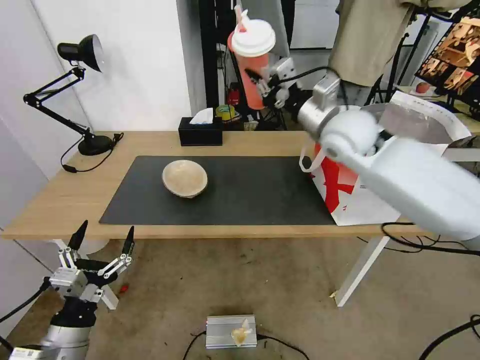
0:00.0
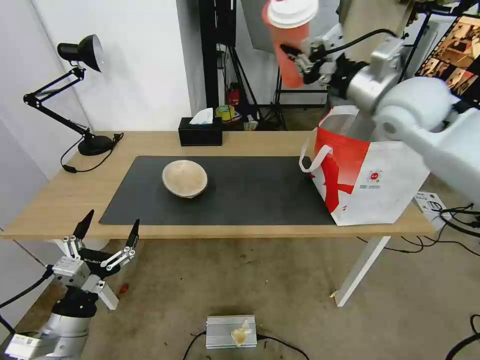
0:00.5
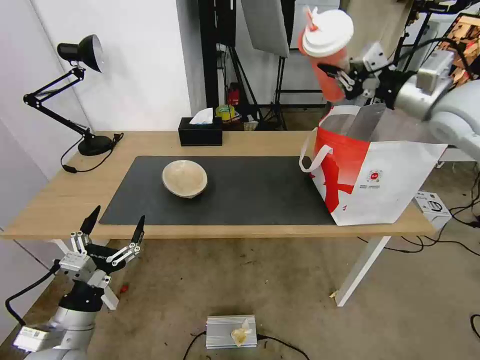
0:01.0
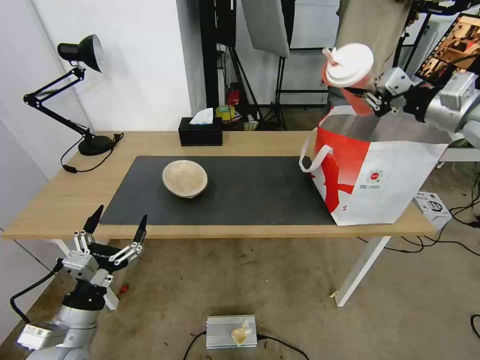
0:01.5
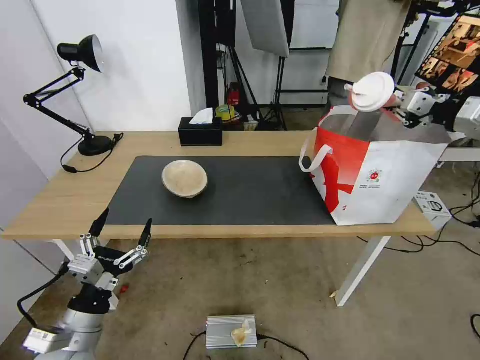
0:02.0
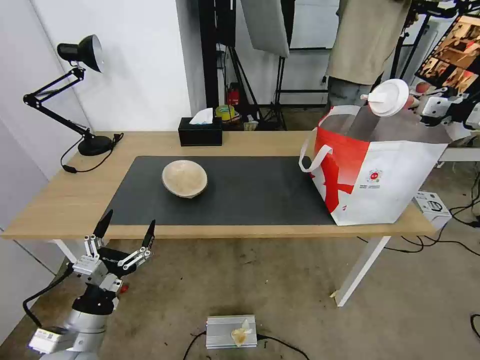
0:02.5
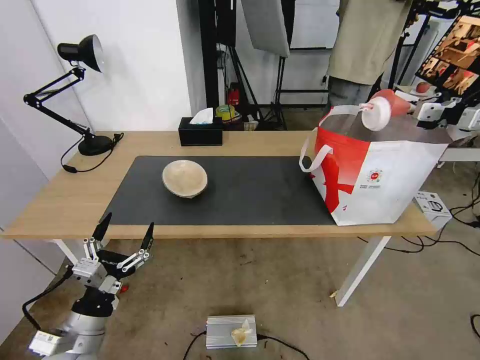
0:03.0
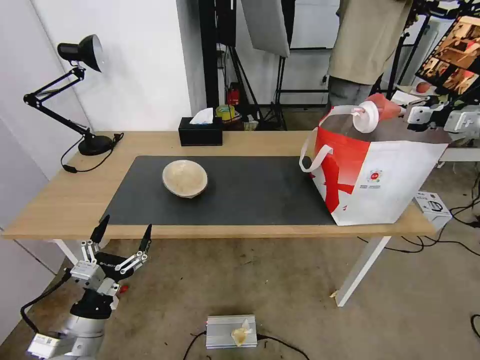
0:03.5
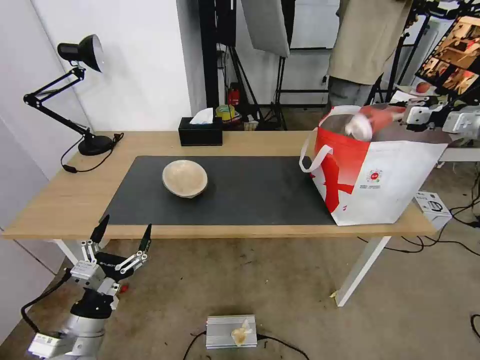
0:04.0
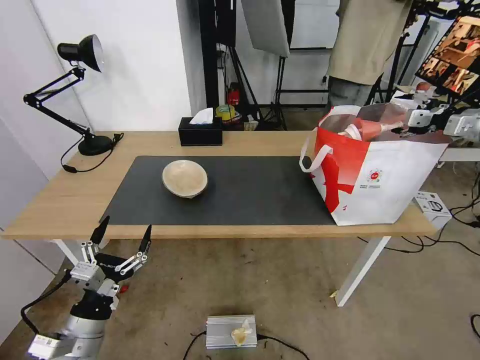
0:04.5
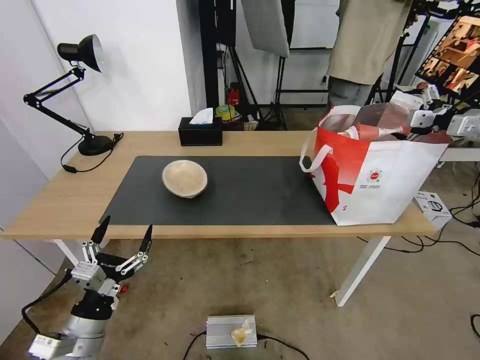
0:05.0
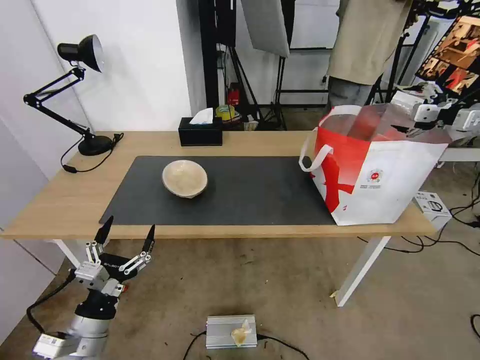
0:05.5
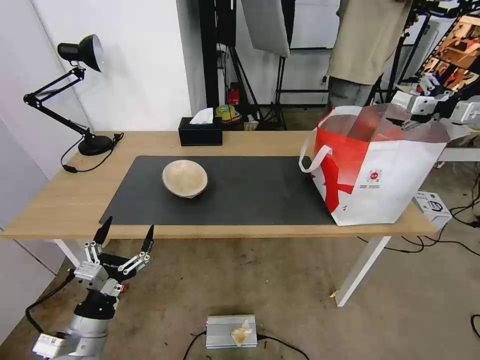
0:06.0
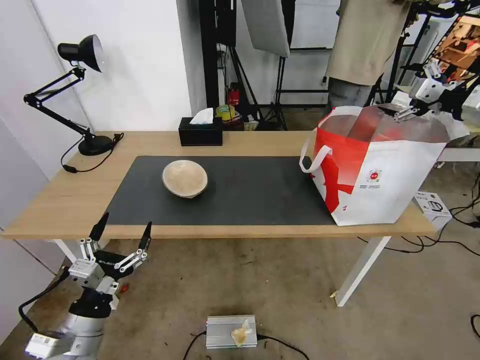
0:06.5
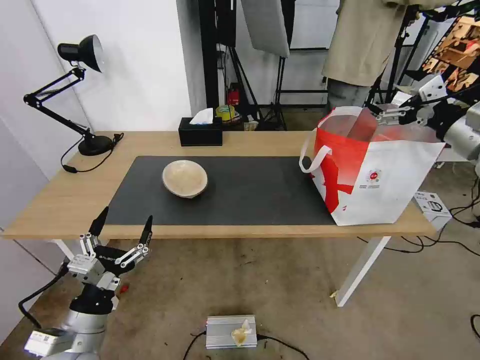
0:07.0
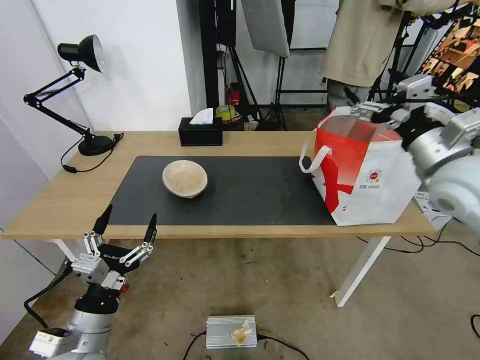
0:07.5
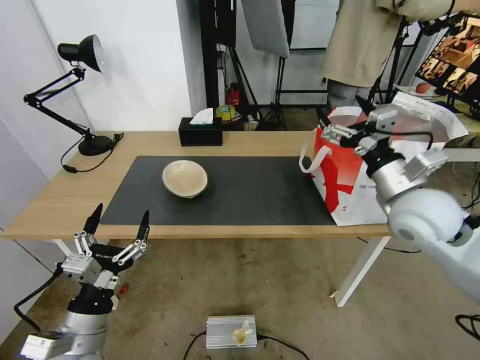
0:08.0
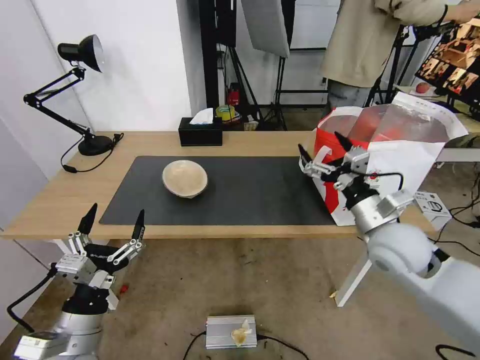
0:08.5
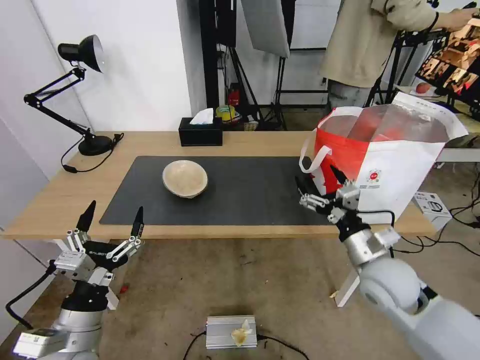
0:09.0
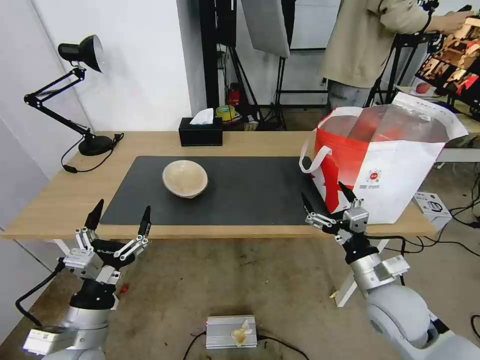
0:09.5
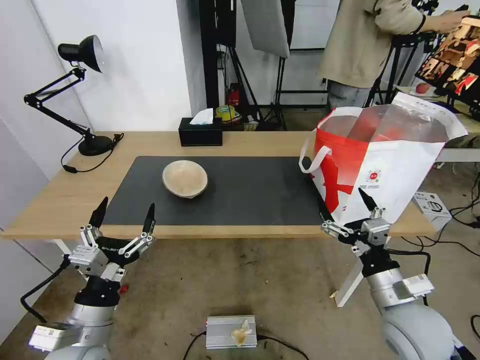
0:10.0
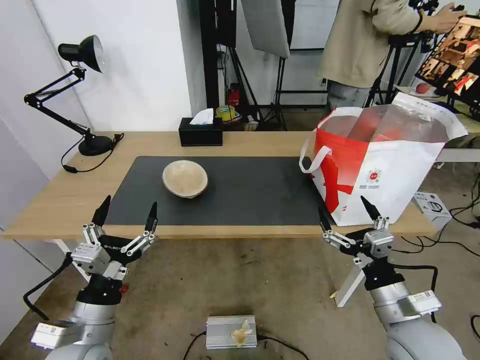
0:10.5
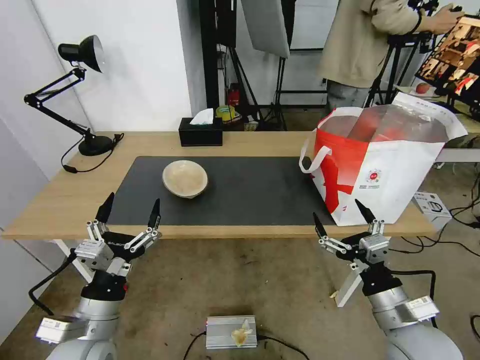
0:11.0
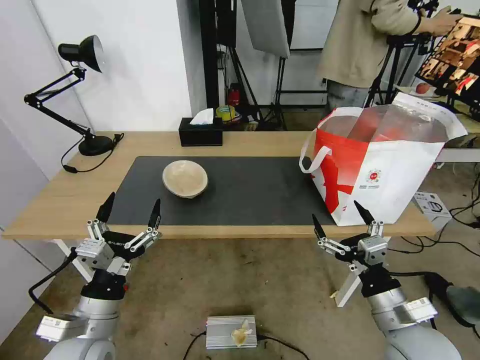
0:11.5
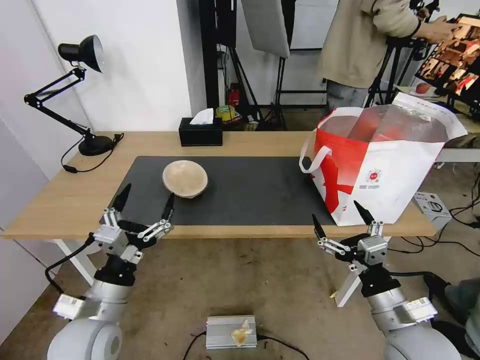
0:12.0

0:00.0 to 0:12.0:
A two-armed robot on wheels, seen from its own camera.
Task of the whole recording: Pick up the trash from the table and place it into the takeout bag.
0:00.0 to 0:02.0: The right gripper shifts roughly 30 cm to the right.
0:02.0 to 0:04.0: The right gripper moves roughly 5 cm.
0:04.0 to 0:06.0: The right gripper opens.
0:06.0 to 0:08.0: The right gripper goes roughly 30 cm to the left, backward and downward.
0:08.0 to 0:10.0: The right gripper goes roughly 20 cm downward and backward.
0:10.0 to 0:12.0: The grippers make only small movements.

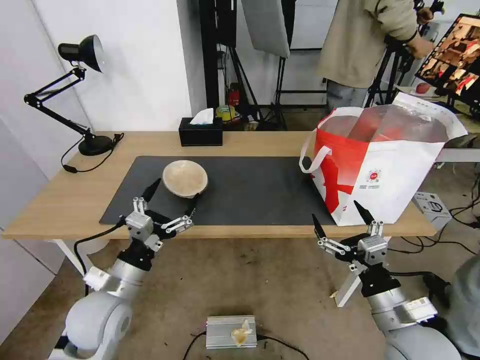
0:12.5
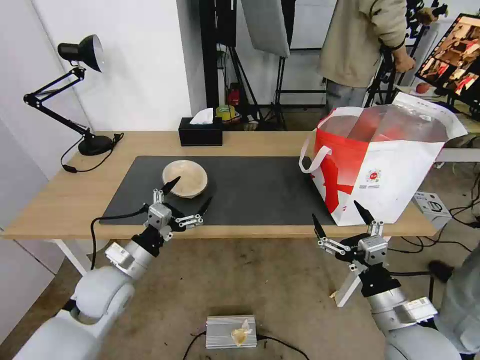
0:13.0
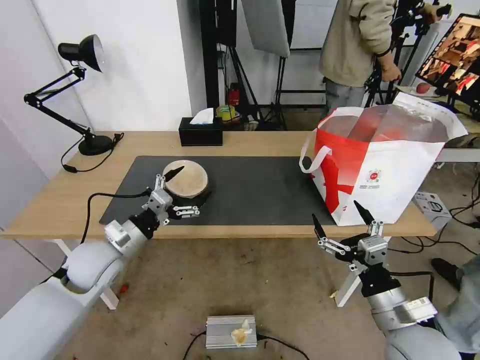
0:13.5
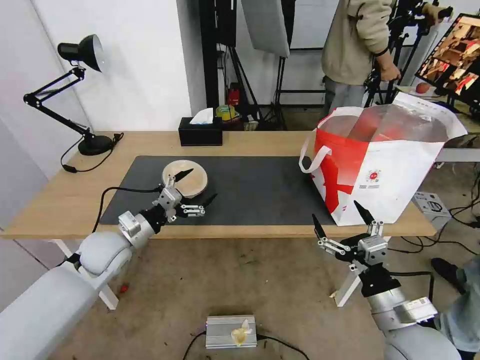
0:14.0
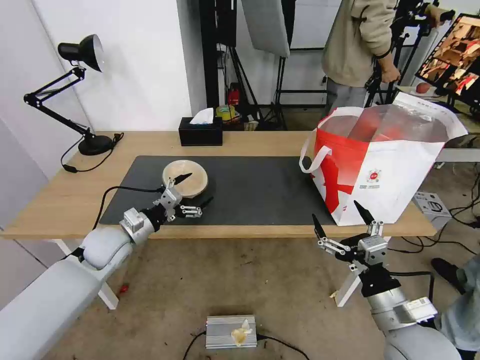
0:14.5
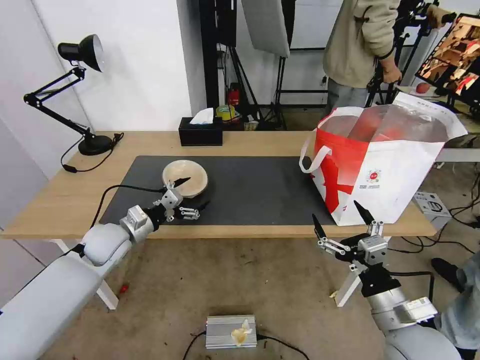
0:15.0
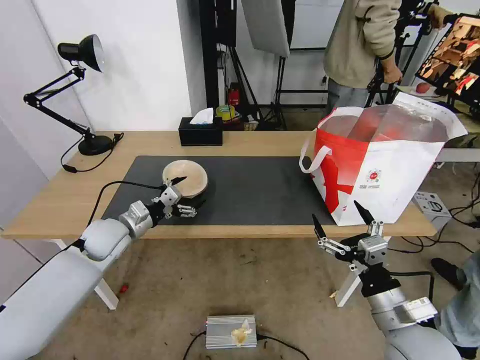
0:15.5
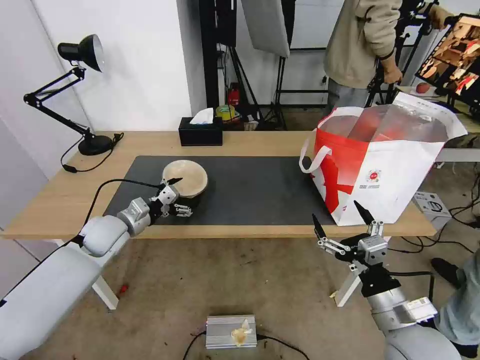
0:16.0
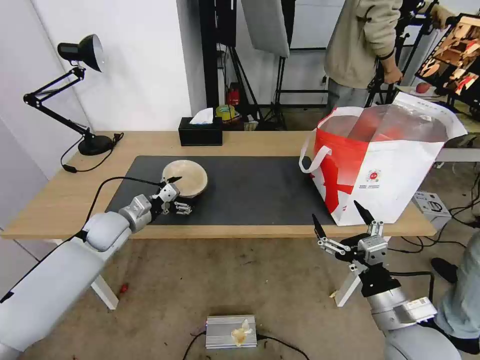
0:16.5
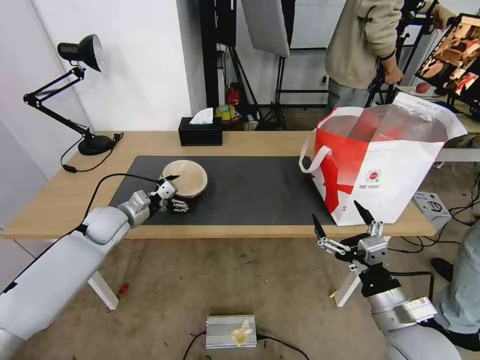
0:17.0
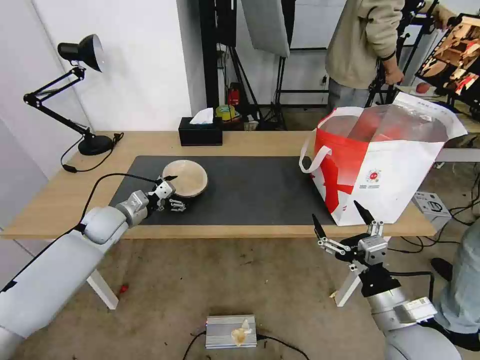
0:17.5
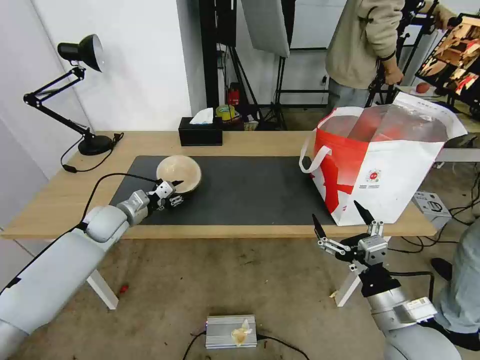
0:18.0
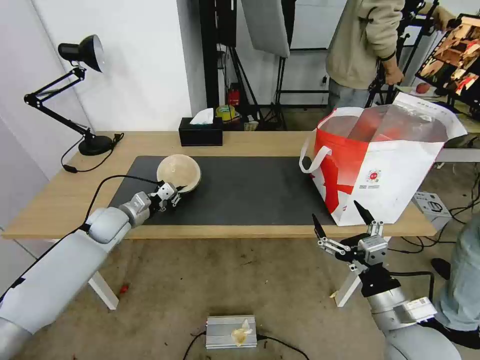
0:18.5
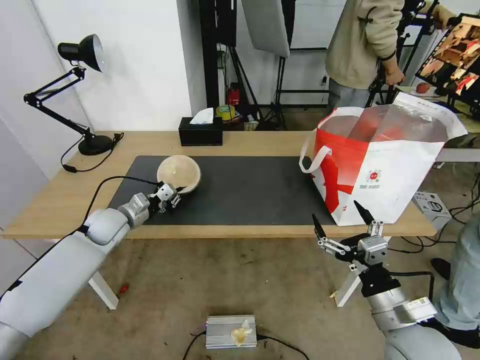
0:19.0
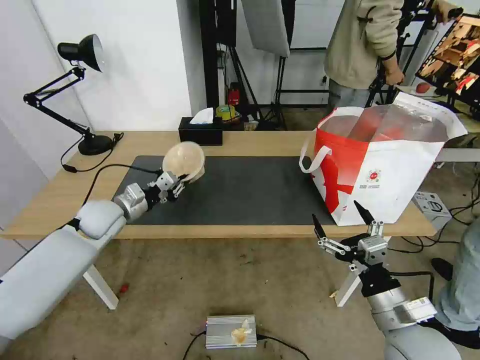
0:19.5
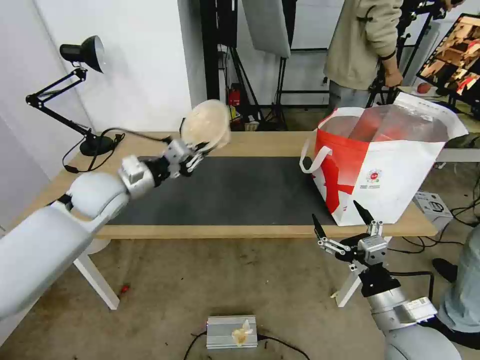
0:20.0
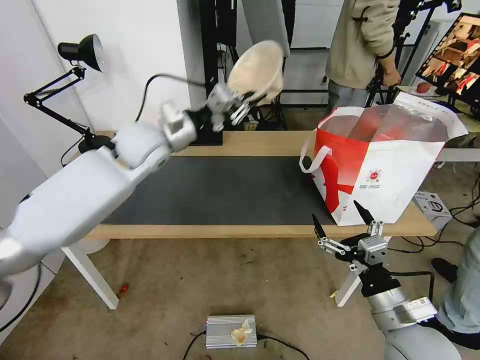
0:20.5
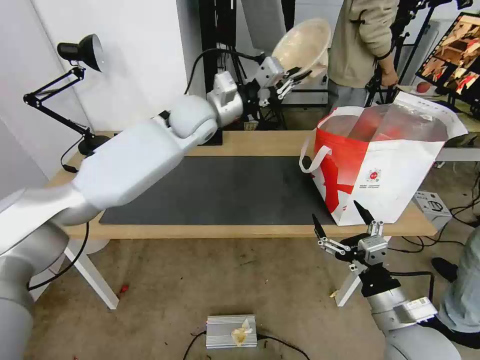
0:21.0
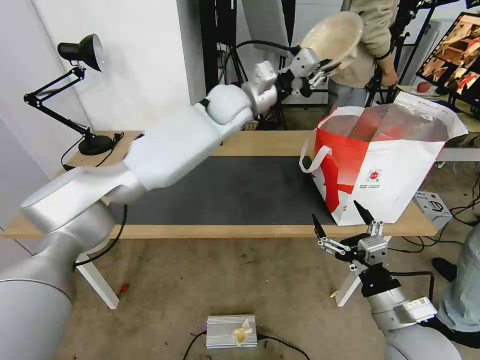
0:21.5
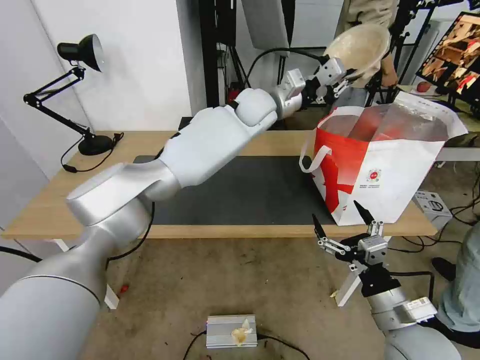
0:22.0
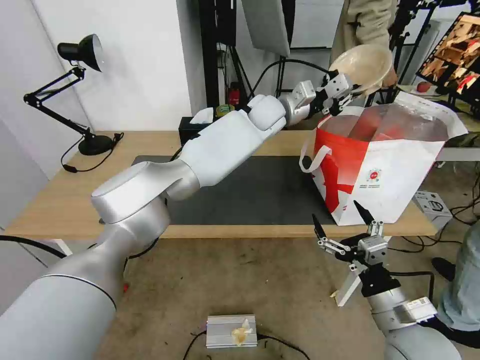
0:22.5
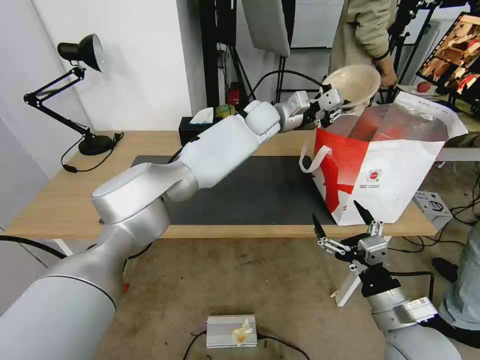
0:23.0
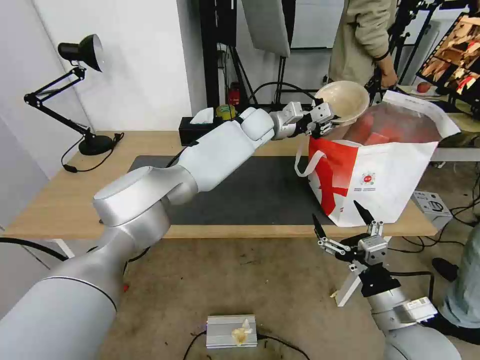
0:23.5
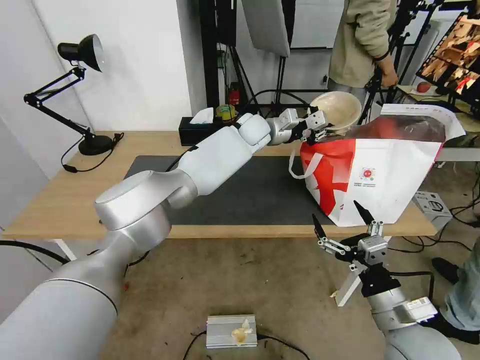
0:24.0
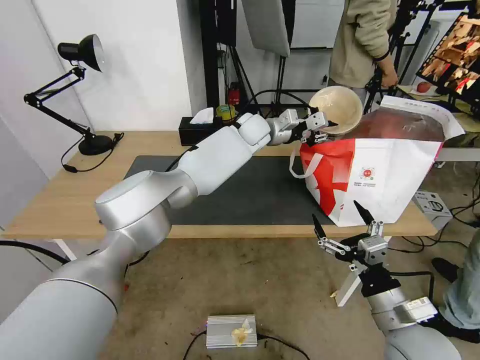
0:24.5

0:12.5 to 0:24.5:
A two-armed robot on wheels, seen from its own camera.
Task of the whole recording: Pick up the trash from the table and place it into the takeout bag.
0:12.5 to 0:14.5: The left gripper travels forward by roughly 15 cm.
0:14.5 to 0:16.5: The grippers make only small movements.
0:16.5 to 0:18.5: The left gripper closes its fingers.
0:18.5 to 0:20.5: The left gripper is displaced upward and to the right by approximately 25 cm.
0:20.5 to 0:22.5: The left gripper heads to the right and forward, covering roughly 30 cm.
0:22.5 to 0:24.5: The left gripper goes roughly 5 cm downward.

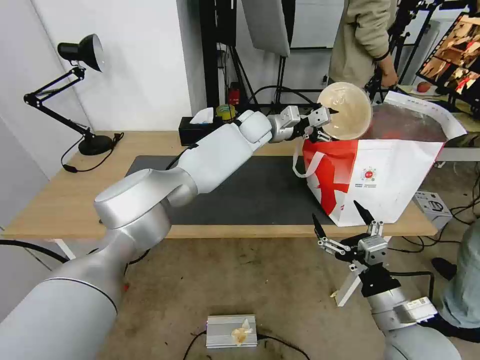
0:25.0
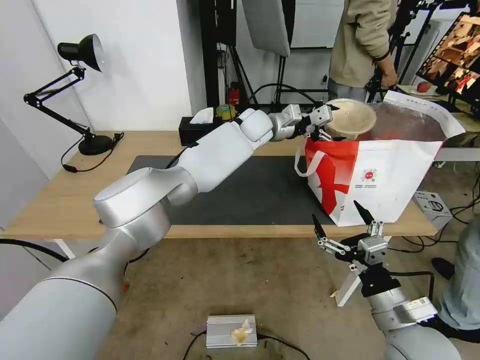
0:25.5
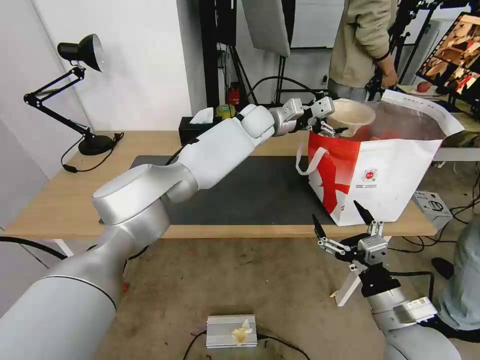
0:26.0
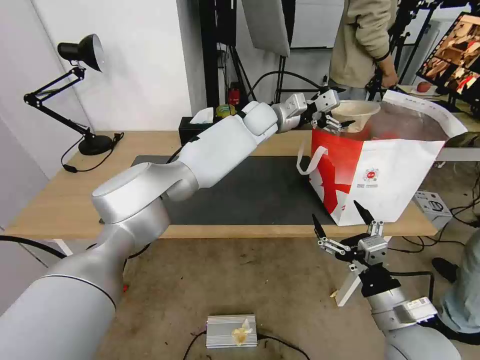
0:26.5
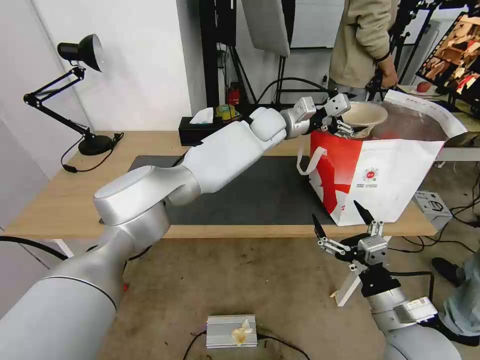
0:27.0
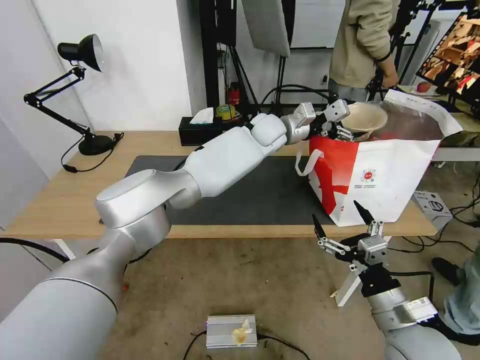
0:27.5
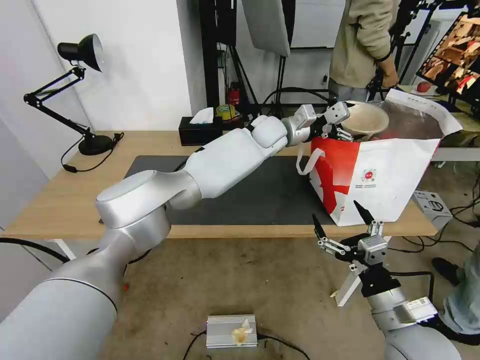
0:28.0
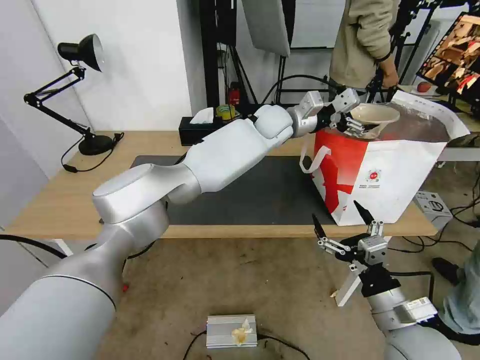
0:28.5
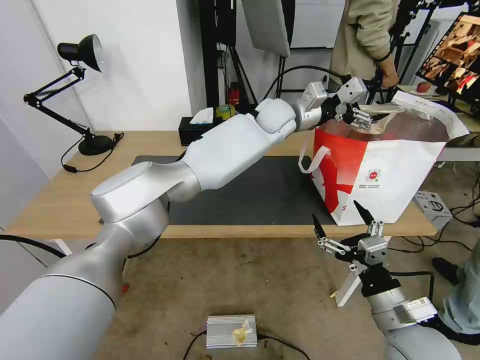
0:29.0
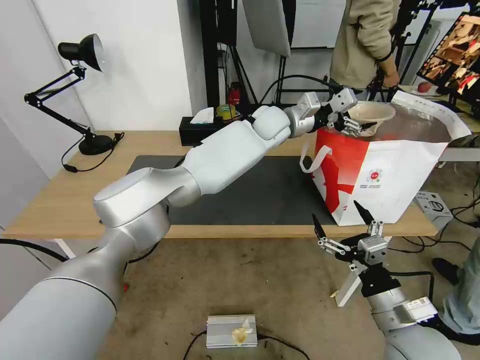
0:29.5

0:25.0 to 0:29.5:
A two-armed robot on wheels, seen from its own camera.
Task of the whole recording: Pick up the trash from the table and place it into the takeout bag.
0:25.0 to 0:27.0: The grippers stay close to where they were, moving slightly.
0:27.0 to 0:29.5: There are only small adjustments of the grippers.
